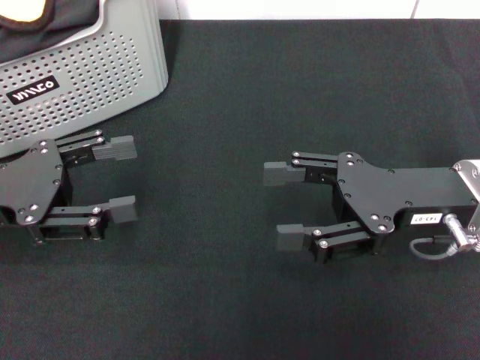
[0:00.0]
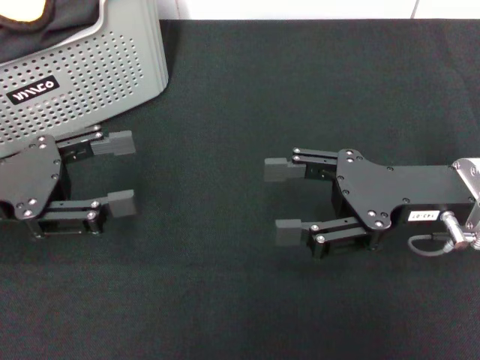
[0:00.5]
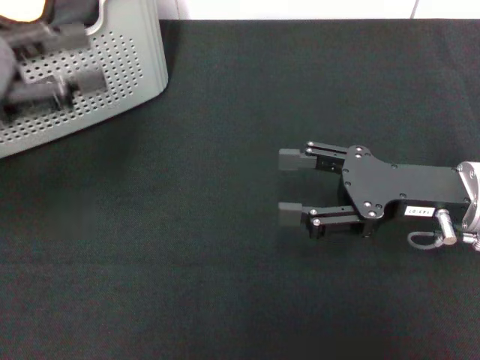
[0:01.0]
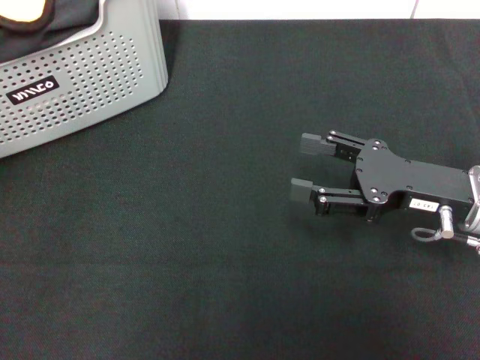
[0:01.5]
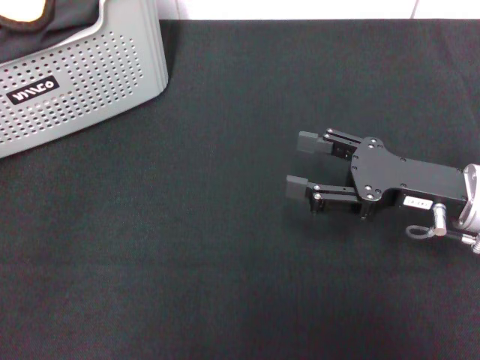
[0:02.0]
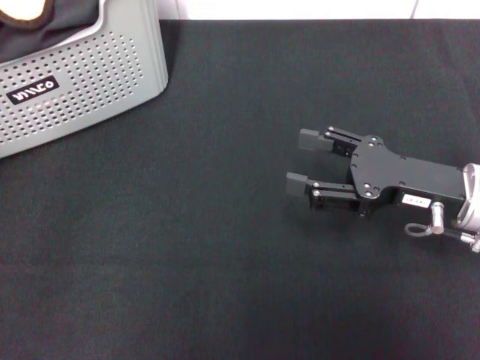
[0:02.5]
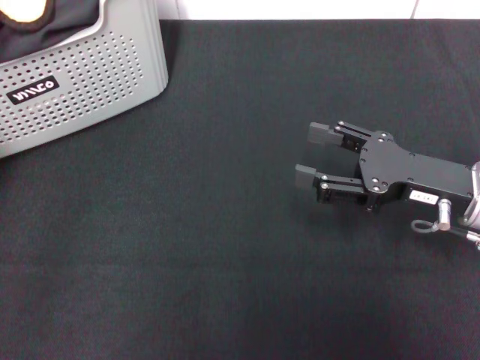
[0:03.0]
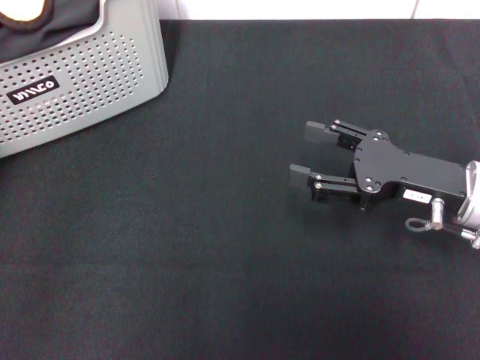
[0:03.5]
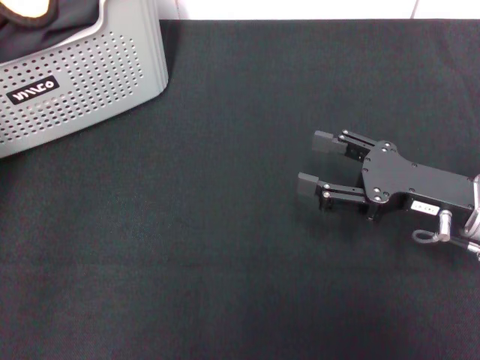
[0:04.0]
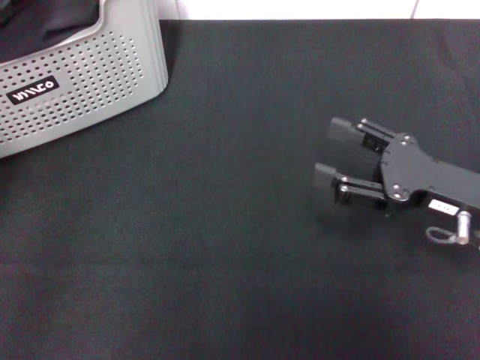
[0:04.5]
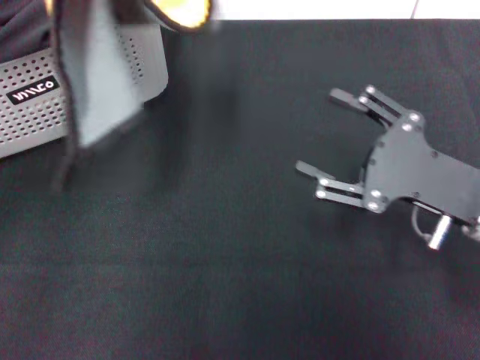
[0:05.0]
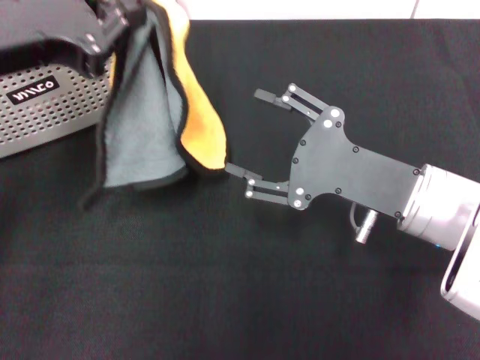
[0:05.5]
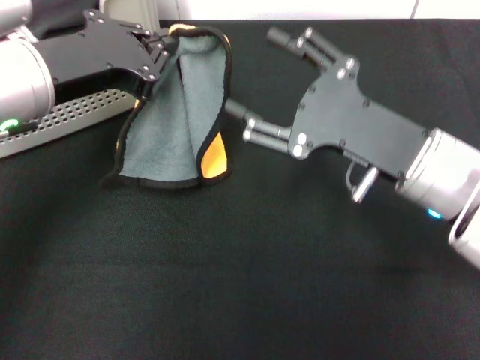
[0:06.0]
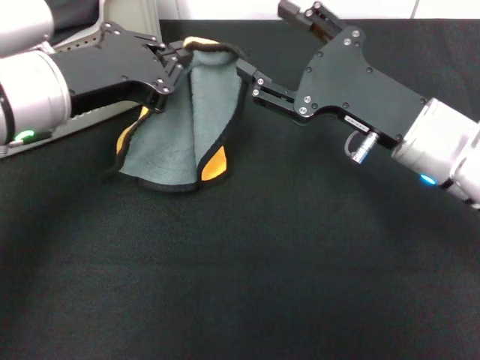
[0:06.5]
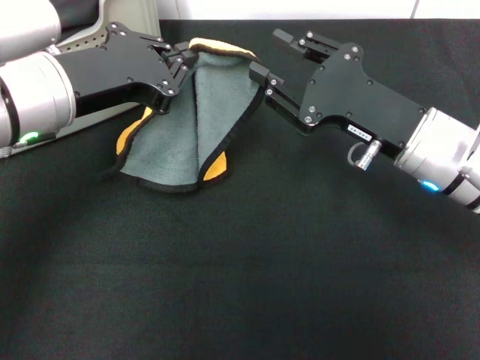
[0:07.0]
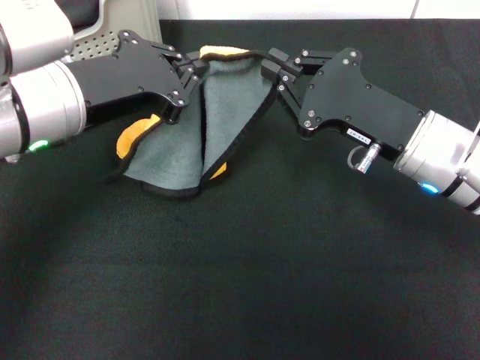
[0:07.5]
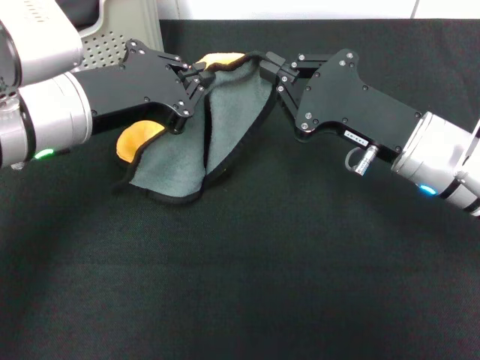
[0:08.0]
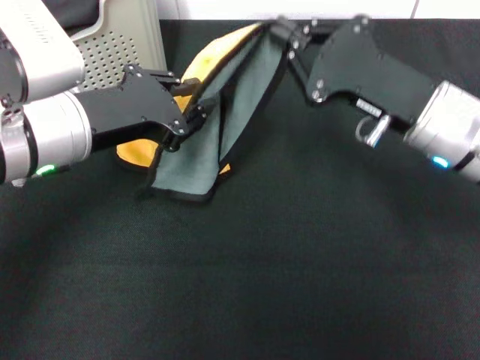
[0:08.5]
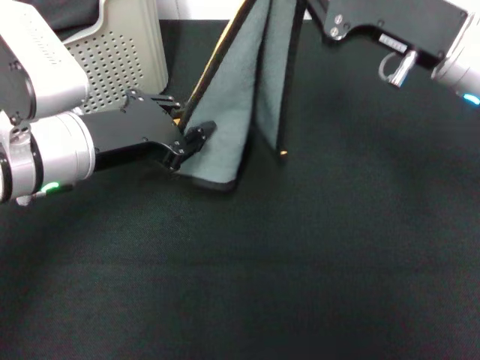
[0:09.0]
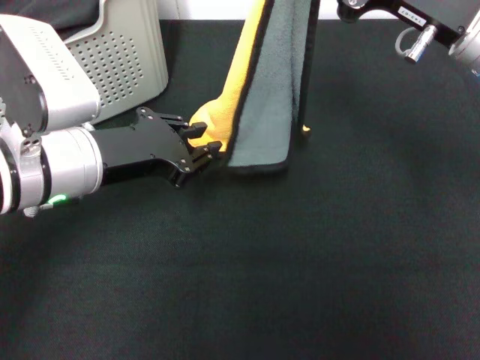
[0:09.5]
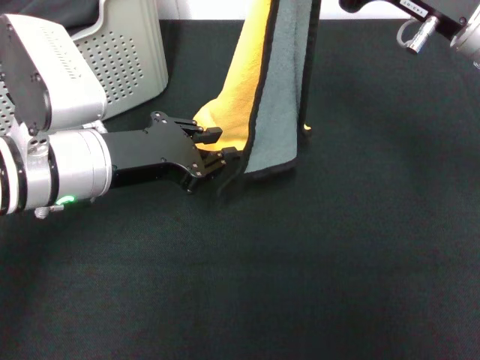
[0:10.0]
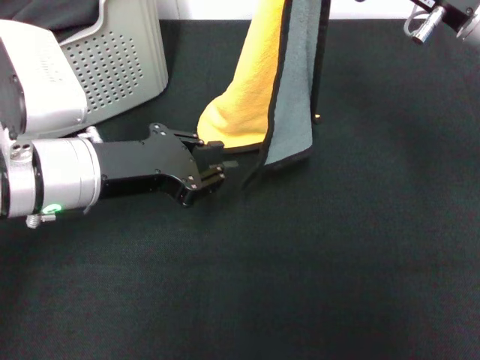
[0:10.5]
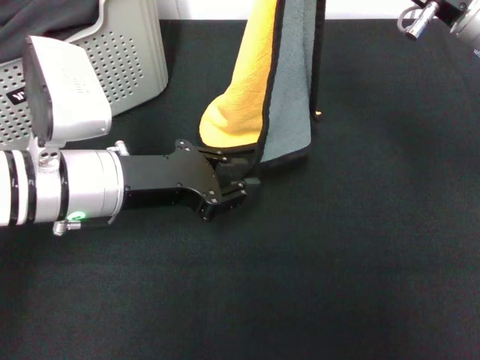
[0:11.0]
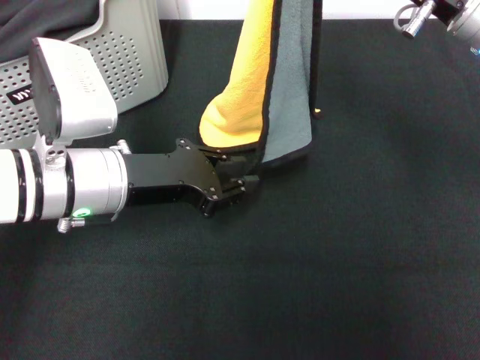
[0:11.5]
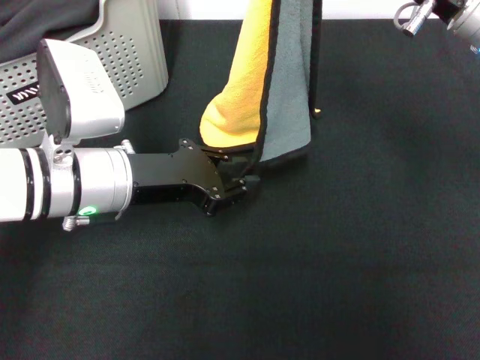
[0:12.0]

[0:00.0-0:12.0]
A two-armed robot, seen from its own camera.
Task of the whole recording: pick up the towel from the storage box and lay it flat on the black tablecloth.
Step, 0:00.0 to 0:03.5: Pick up a towel with the left gripper.
Step, 0:04.0 to 0:07.5: Spread the towel flat with the left gripper.
0:00.0 to 0:02.0: The left gripper heads upward, covering some 15 cm.
0:02.0 to 0:04.0: The left gripper changes place by approximately 5 cm, and closes.
0:04.0 to 0:06.0: The right gripper is displaced to the left and upward by roughly 10 cm. Meanwhile the left gripper goes some 10 cm to the right.
0:06.0 to 0:08.0: The right gripper closes up.
0:08.0 to 0:10.0: The right gripper moves upward, approximately 10 cm.
0:10.0 to 0:12.0: There are only small adjustments of the grippers.

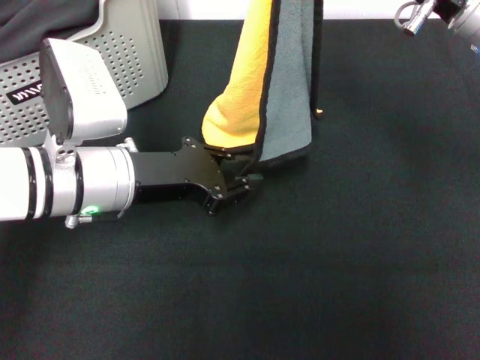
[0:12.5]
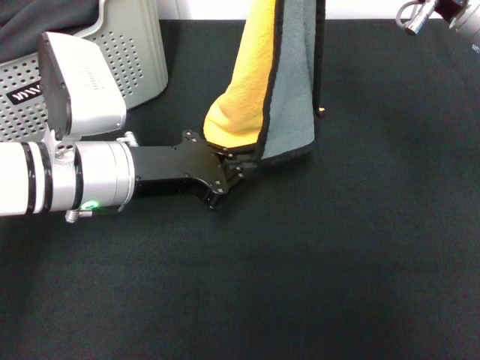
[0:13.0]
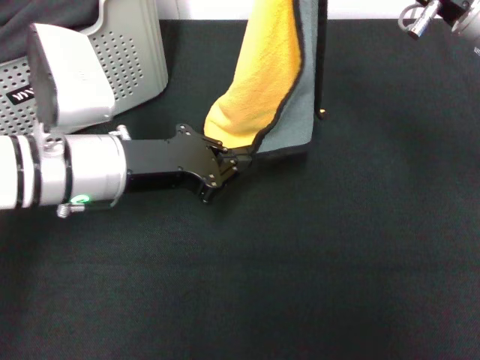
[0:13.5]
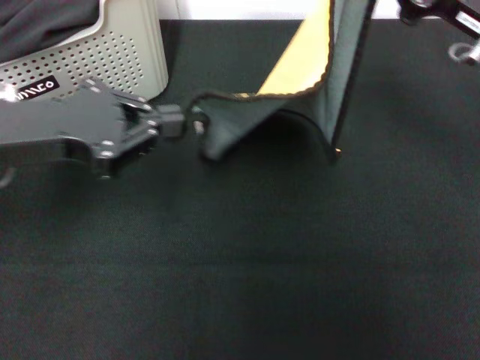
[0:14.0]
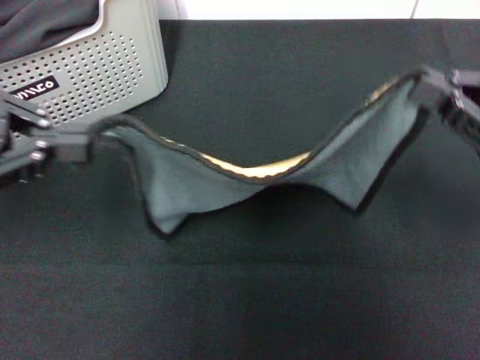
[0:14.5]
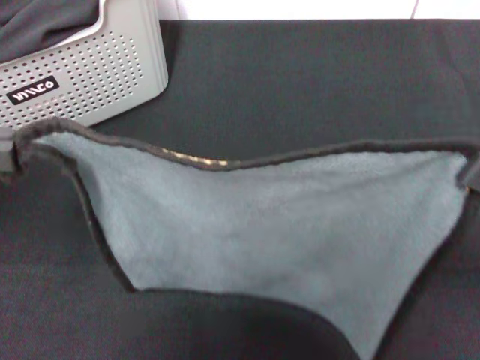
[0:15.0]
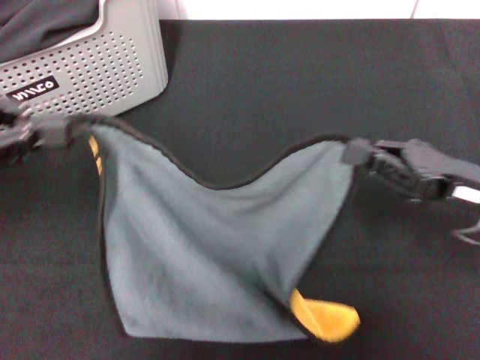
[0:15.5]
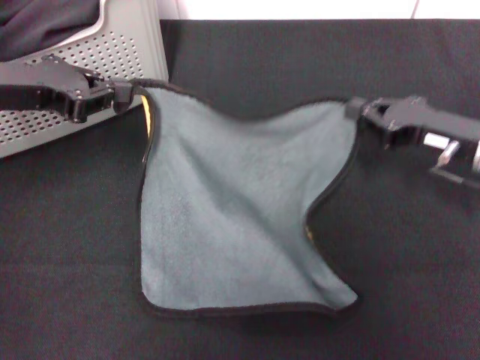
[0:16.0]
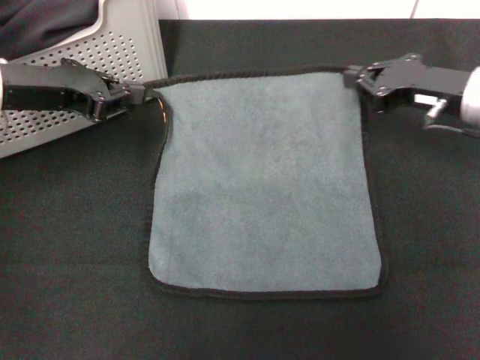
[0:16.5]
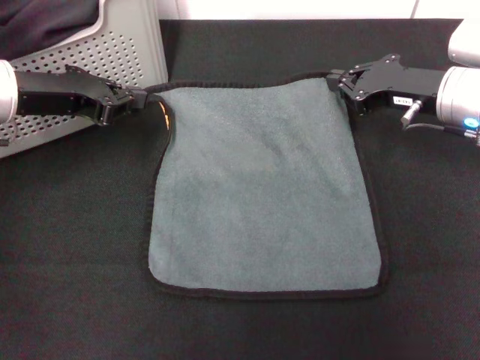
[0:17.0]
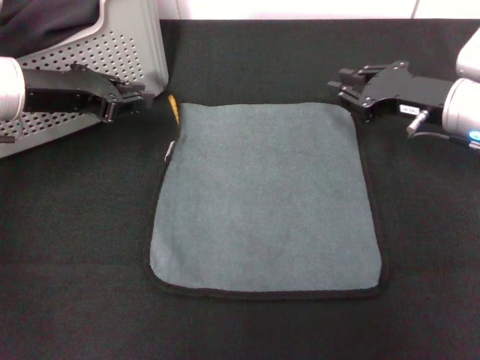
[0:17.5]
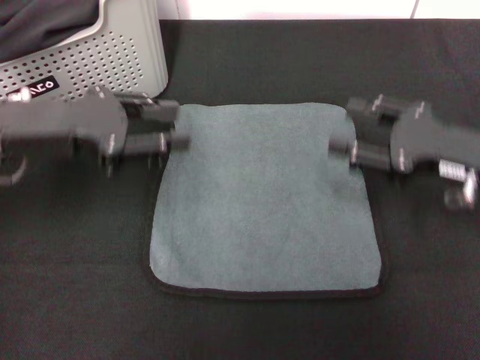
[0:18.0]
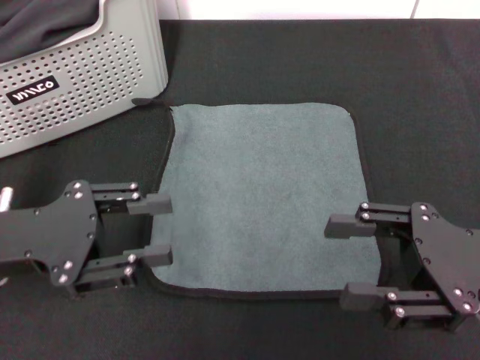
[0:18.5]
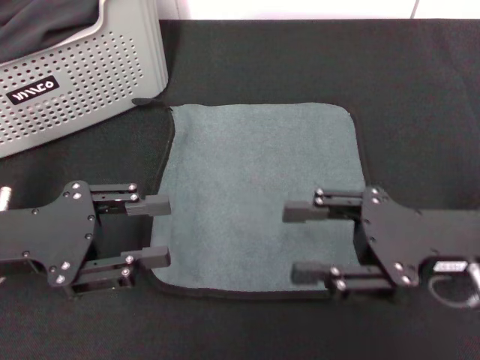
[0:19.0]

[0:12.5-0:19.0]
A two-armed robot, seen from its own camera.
Task of the whole recording: pick up the towel from the storage box and lay it flat on the black tablecloth.
Step, 0:12.5 to 0:17.5: Spread the towel flat with the right gripper.
0:12.5 to 0:14.5: The right gripper travels to the right, backward and downward by some 15 cm; the left gripper is displaced to the left and upward by approximately 20 cm.
0:14.5 to 0:17.0: The left gripper moves forward and downward, approximately 15 cm; the right gripper shifts about 15 cm forward and to the left.
0:17.0 to 0:19.0: Both grippers travel together backward, some 15 cm. The right gripper opens, while the left gripper opens its fingers.
